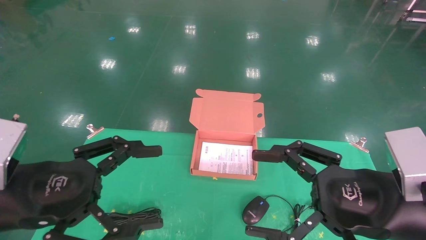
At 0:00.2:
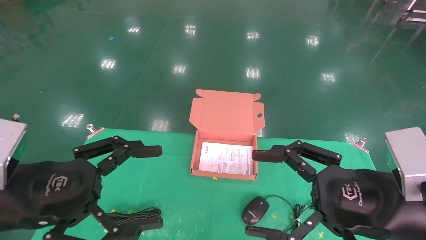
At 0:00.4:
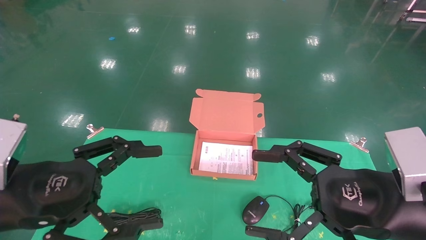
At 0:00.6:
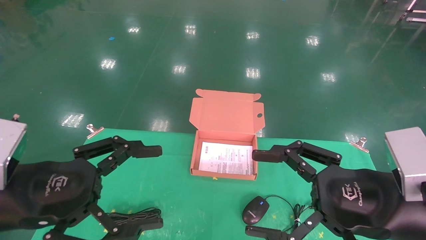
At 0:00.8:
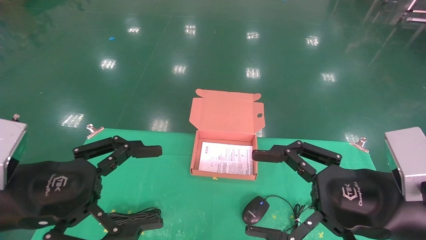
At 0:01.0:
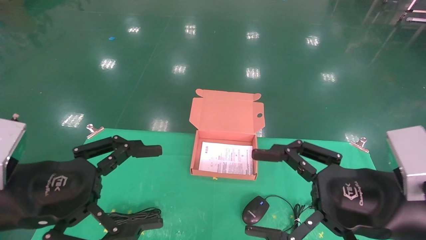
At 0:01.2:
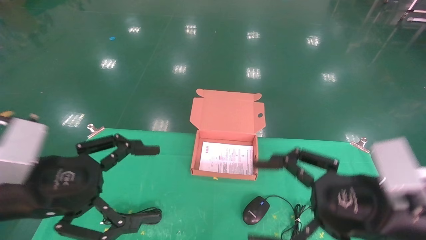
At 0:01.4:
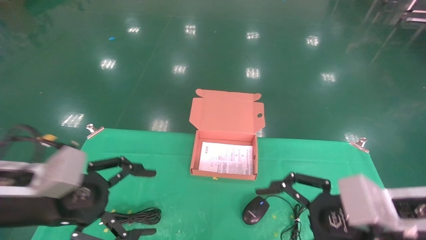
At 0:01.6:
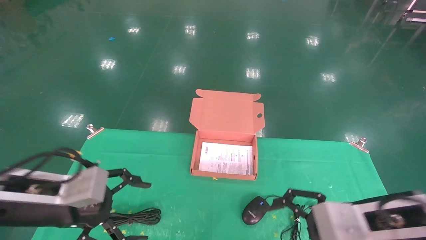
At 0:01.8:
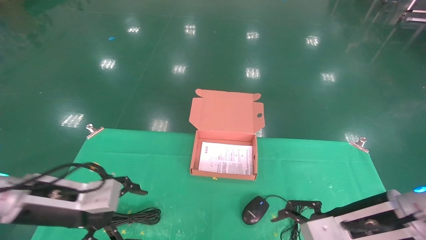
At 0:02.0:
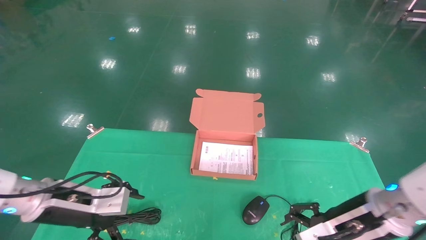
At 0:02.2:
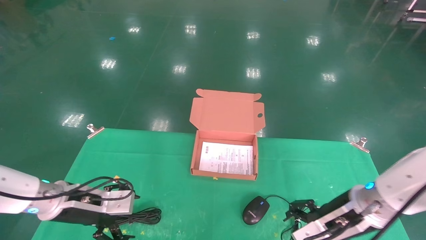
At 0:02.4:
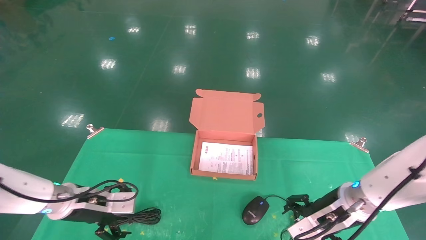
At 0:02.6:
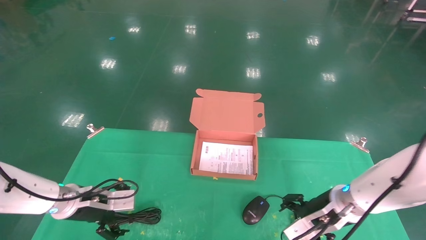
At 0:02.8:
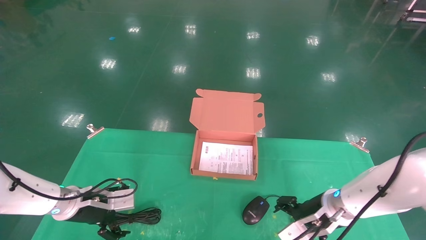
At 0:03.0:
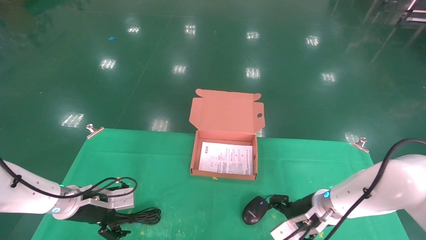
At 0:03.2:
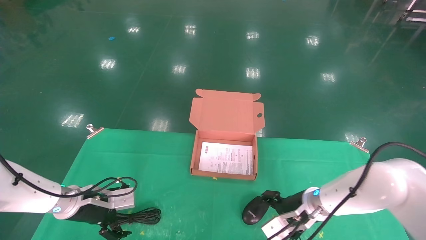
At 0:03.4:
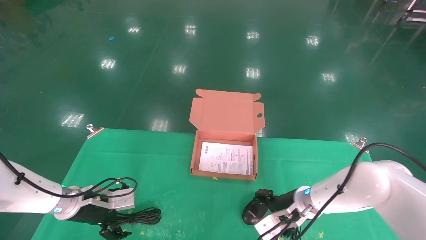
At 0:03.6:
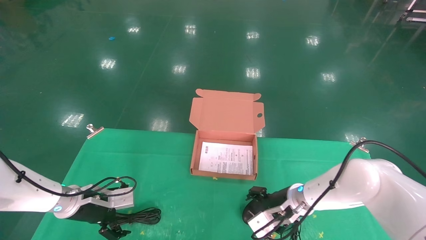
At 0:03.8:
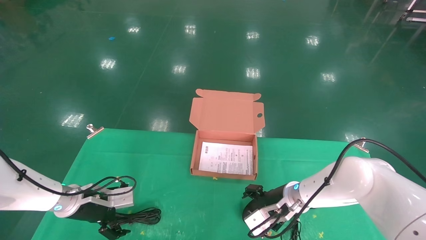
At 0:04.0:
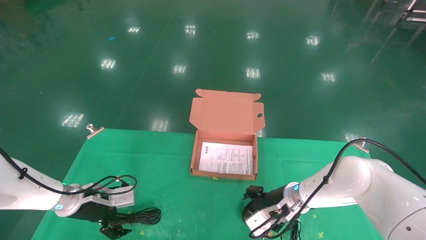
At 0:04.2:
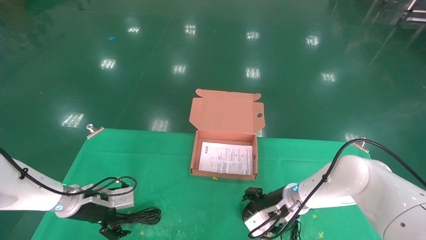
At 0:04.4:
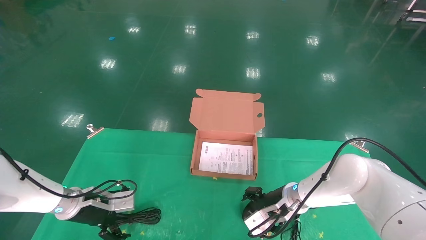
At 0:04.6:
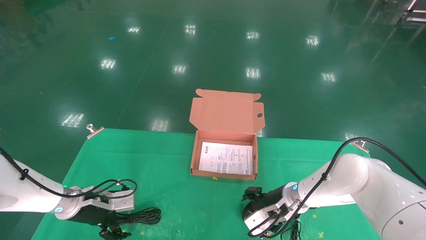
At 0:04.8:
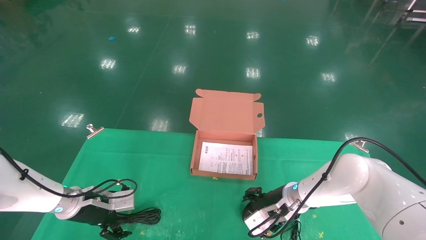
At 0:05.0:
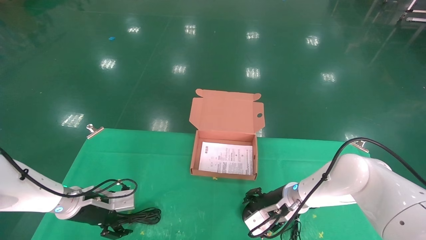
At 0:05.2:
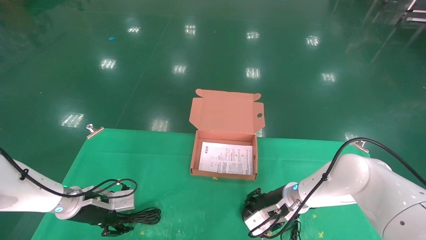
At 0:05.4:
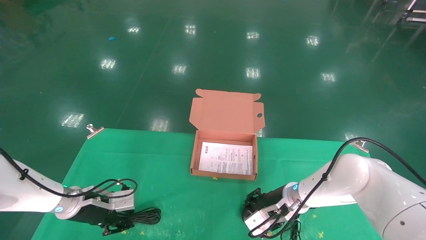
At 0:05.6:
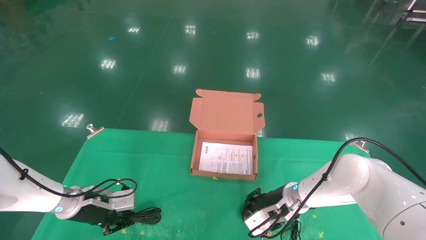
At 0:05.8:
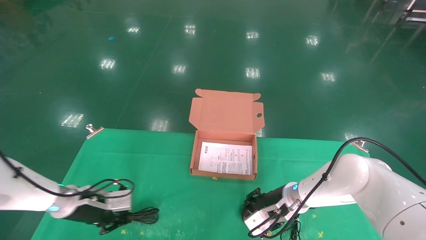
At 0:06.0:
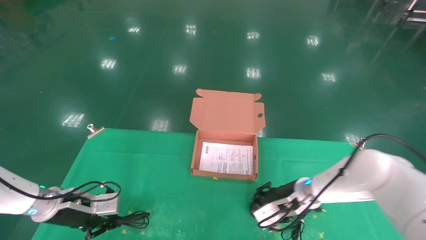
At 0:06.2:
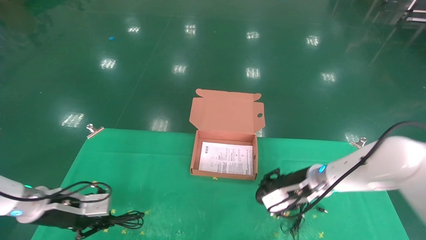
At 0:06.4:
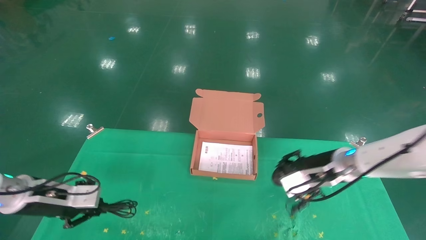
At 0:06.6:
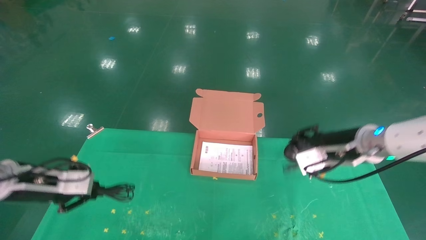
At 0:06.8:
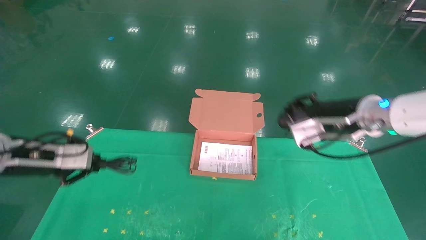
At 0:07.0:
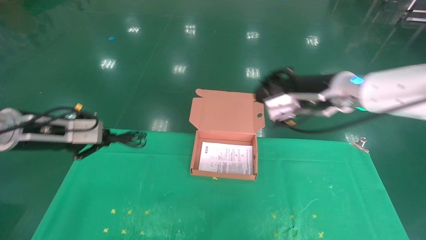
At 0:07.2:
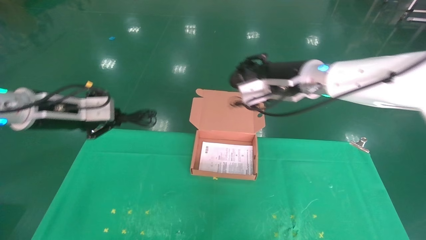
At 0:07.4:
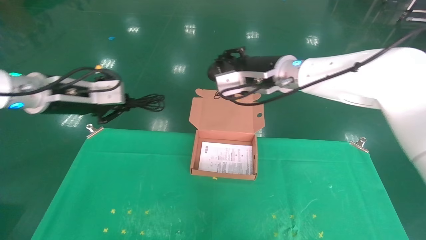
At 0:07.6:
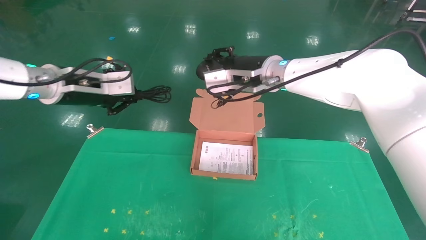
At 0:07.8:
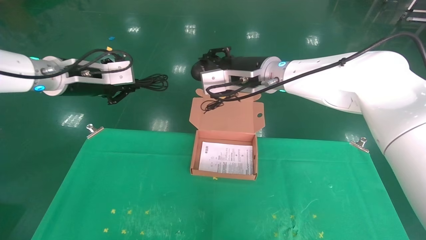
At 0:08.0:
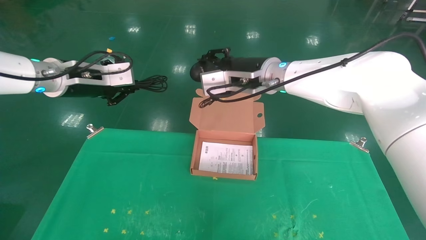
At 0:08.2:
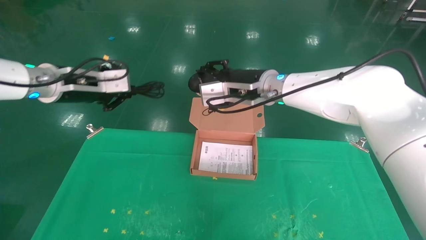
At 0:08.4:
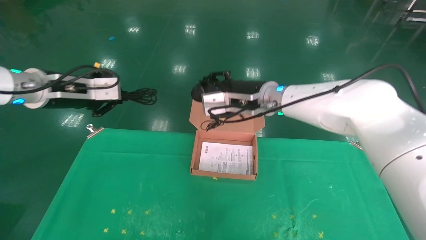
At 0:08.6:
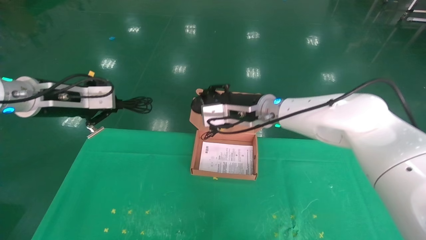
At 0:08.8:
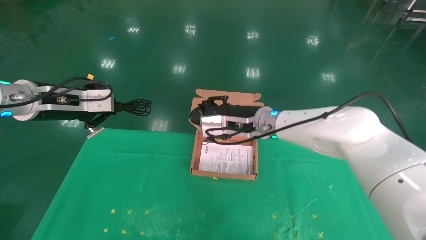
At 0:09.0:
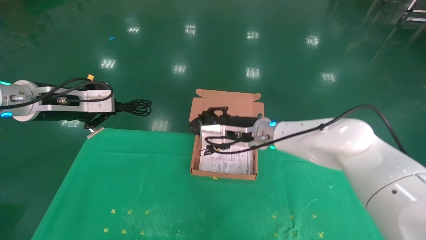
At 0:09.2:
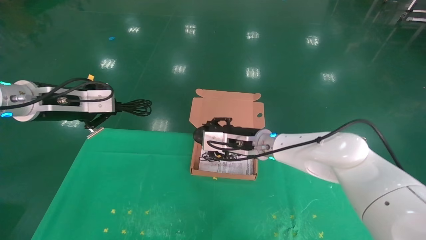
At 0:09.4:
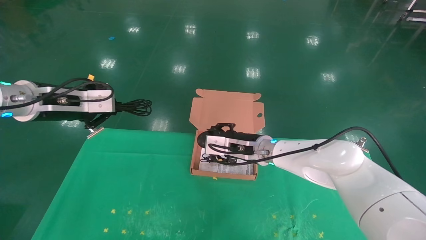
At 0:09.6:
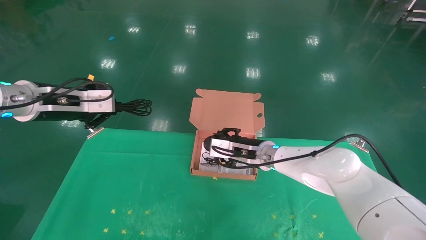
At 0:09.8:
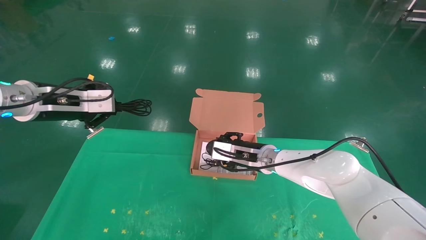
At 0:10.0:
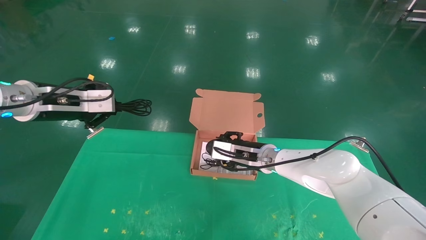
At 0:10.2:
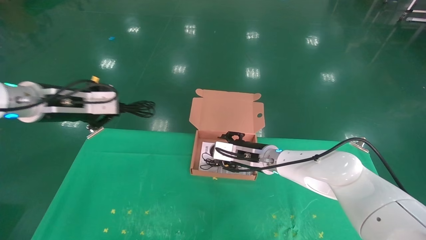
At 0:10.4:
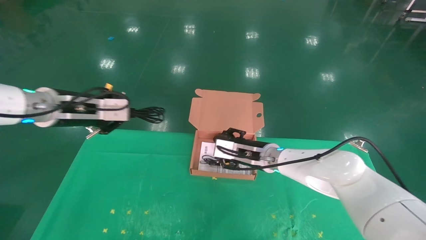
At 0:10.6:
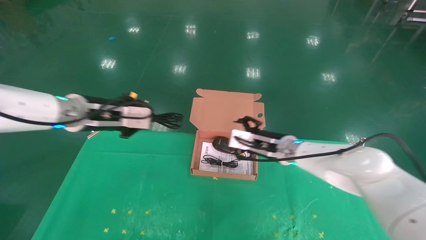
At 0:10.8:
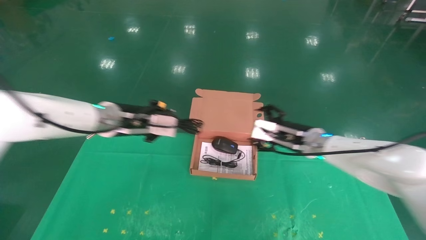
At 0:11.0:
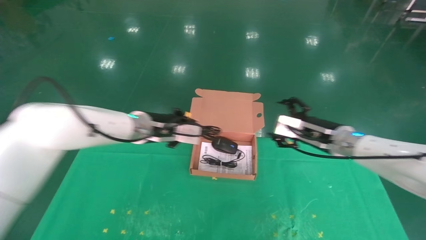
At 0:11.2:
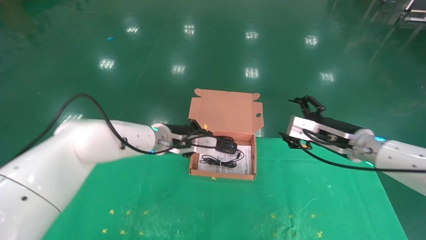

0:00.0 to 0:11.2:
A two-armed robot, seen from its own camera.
Task of the whole recording: grasp data cable left put into box grasp mouse right put into box.
Step, 0:01.4 to 0:05.6: Grab and pick up both the mouse and power cord from the accessory packaging area at the same time.
0:00.0 to 0:01.6: The right gripper moves some 5 cm; the left gripper heads forward, covering approximately 5 cm.
0:01.6 to 0:03.2: Both grippers move forward and downward, roughly 20 cm.
0:03.2 to 0:04.8: The right gripper ends up about 5 cm from where it was.
0:04.8 to 0:06.4: The left gripper goes about 10 cm upward, to the left and backward, and closes. The right gripper shifts approximately 15 cm upward and to the right, and closes up.
0:06.4 to 0:08.0: The left gripper heads upward, covering approximately 20 cm. The right gripper heads upward and to the left, covering about 25 cm.
0:08.0 to 0:09.6: The left gripper changes place by some 5 cm. Meanwhile the right gripper heads downward, covering some 20 cm.
0:09.6 to 0:11.2: The left gripper is displaced to the right, downward and forward by approximately 25 cm, while the right gripper is displaced to the right by approximately 15 cm, and opens.

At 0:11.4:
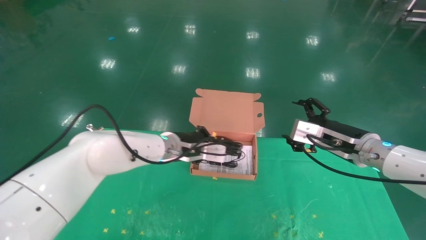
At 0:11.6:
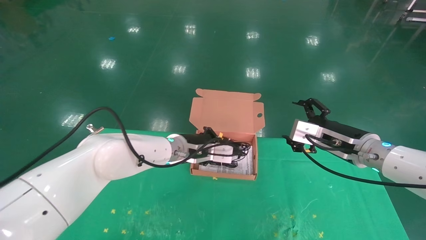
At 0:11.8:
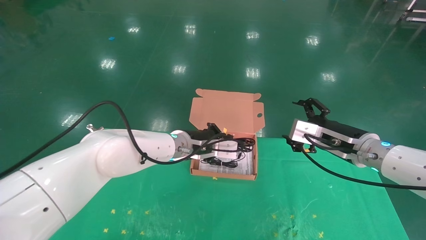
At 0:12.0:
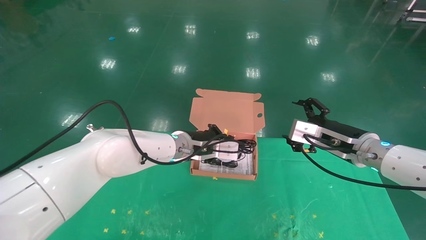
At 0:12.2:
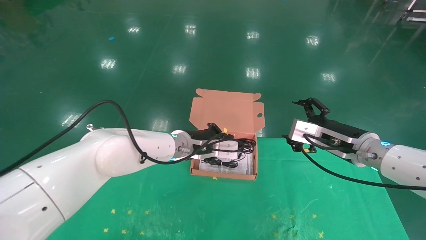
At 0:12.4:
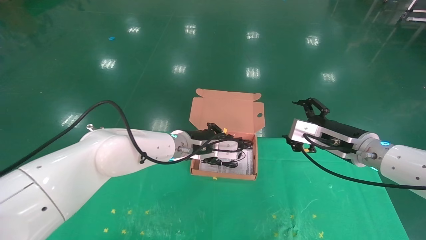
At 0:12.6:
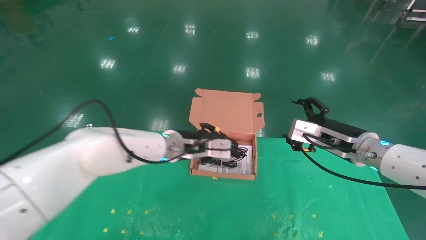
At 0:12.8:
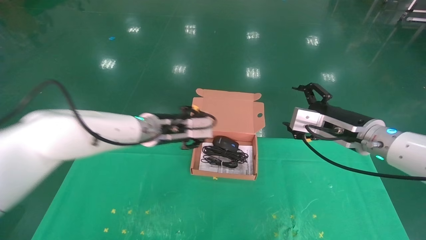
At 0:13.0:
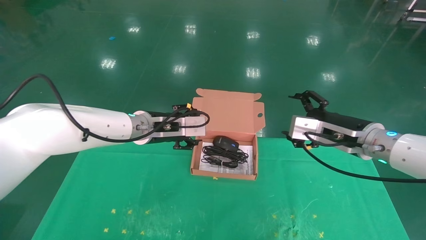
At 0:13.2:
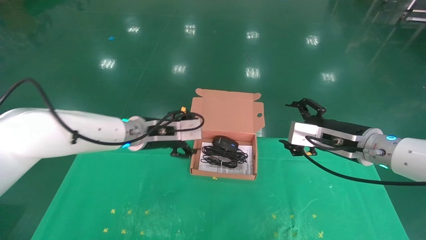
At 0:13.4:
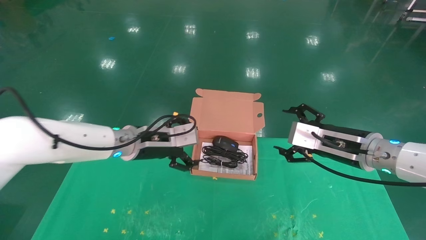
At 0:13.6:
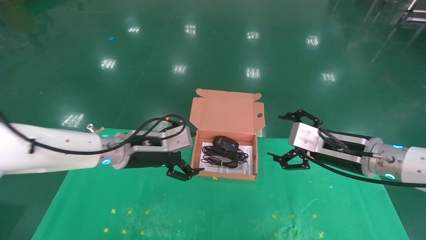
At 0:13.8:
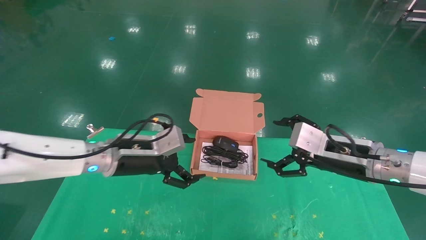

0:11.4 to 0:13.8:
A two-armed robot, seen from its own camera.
Task of the whole recording: grasp data cable left put into box grasp mouse right put into box.
0:11.4 to 0:12.6: The grippers move only a little.
0:12.6 to 0:13.8: The right gripper heads backward, covering roughly 5 cm; the left gripper travels to the left and backward by approximately 15 cm, and opens its fingers.
